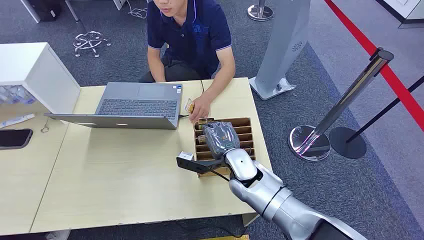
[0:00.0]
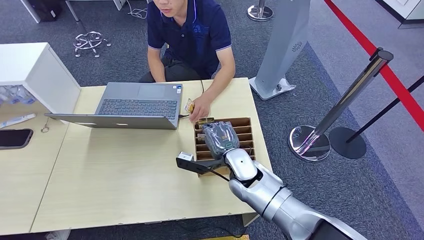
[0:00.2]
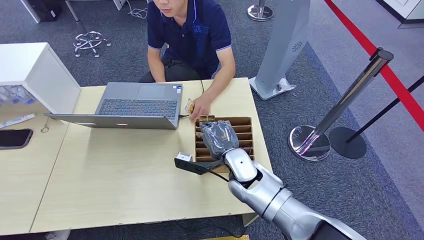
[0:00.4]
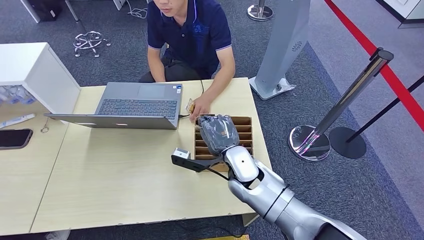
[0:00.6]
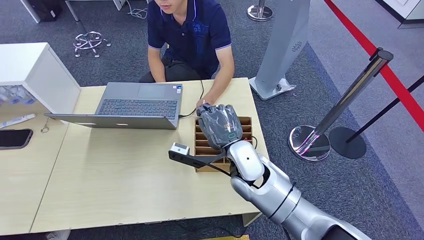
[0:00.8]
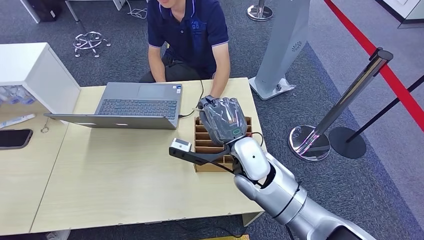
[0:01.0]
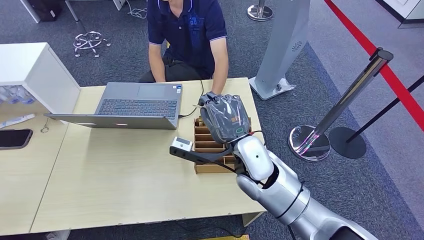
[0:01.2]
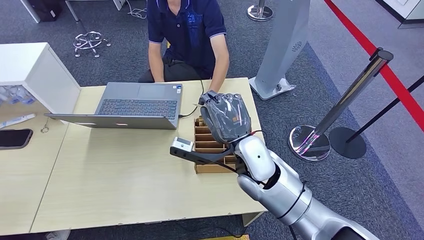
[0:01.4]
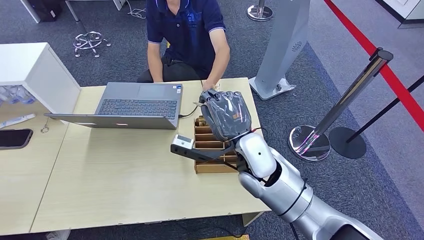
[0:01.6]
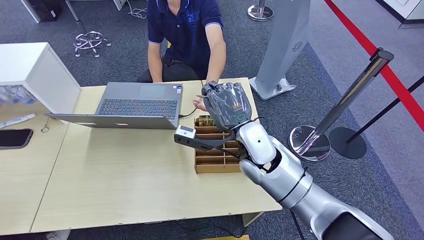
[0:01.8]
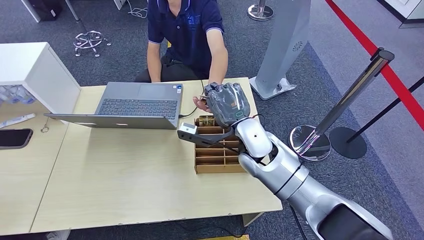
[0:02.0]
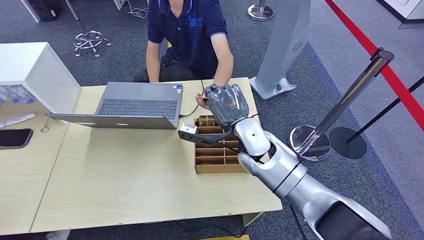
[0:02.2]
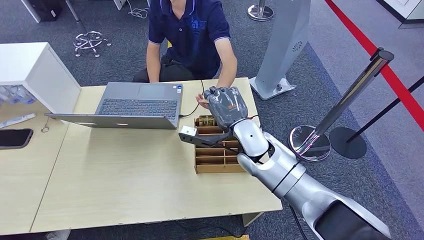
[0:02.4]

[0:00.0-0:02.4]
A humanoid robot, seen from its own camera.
Step, 0:00.0 to 0:00.8: Pick up the key card from the card box.
Step, 0:02.2 to 0:02.4: Hand the key card to the target.
0:01.2 to 0:02.4: The right hand goes roughly 5 cm forward.
